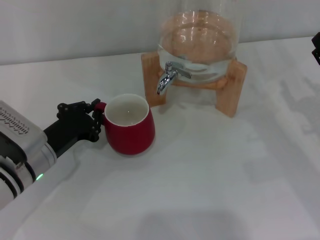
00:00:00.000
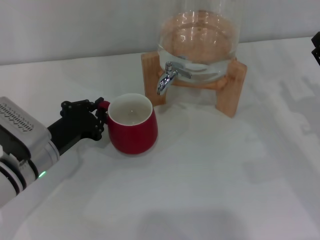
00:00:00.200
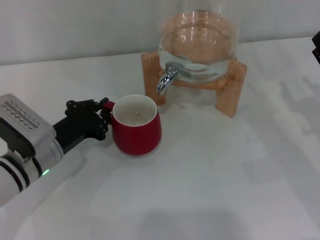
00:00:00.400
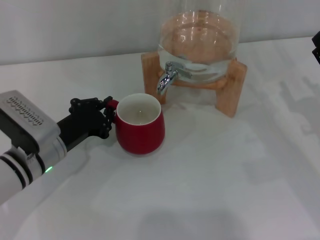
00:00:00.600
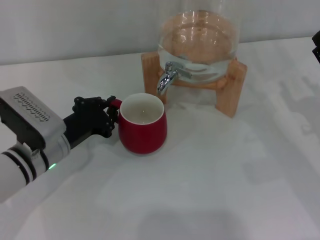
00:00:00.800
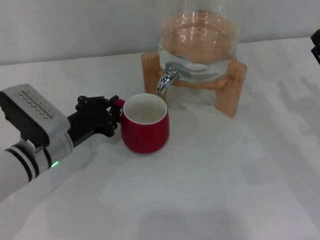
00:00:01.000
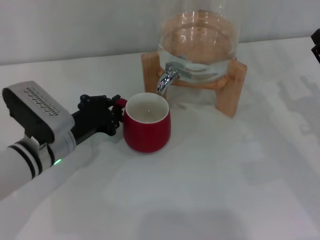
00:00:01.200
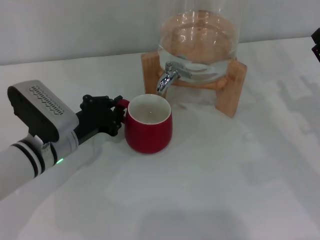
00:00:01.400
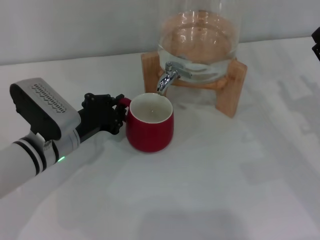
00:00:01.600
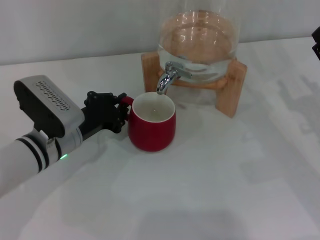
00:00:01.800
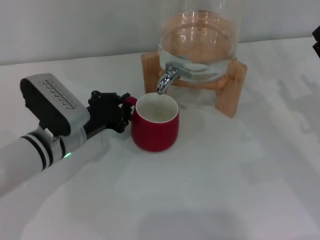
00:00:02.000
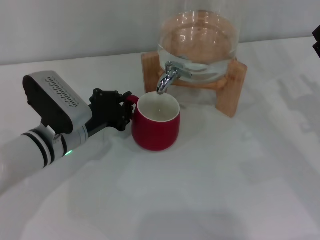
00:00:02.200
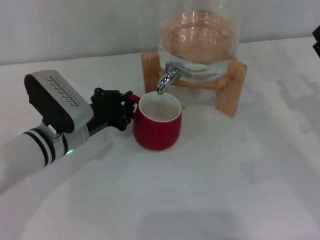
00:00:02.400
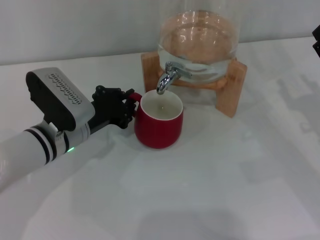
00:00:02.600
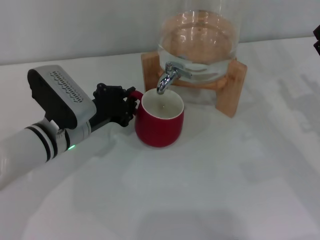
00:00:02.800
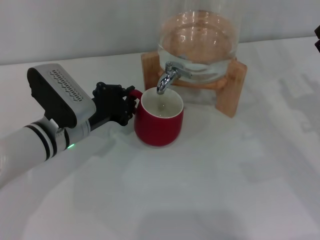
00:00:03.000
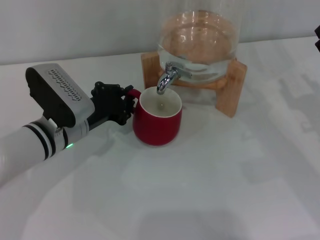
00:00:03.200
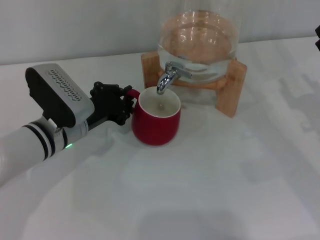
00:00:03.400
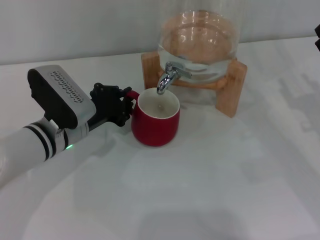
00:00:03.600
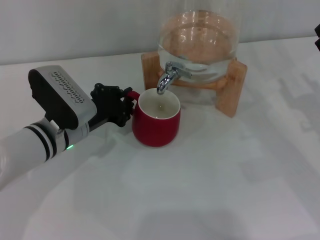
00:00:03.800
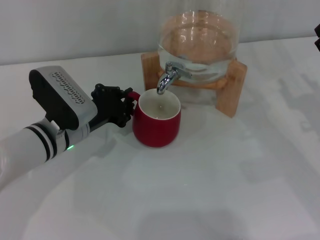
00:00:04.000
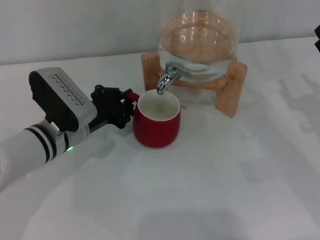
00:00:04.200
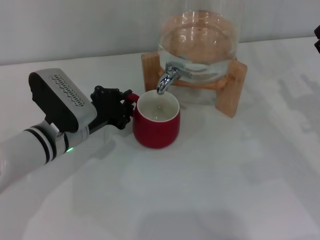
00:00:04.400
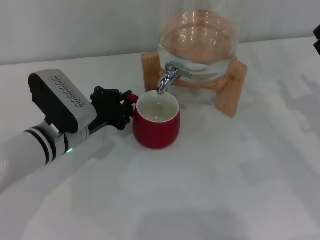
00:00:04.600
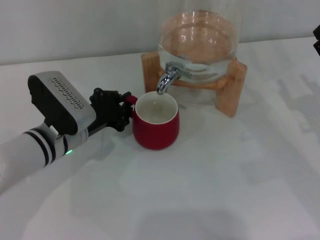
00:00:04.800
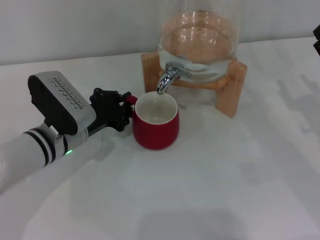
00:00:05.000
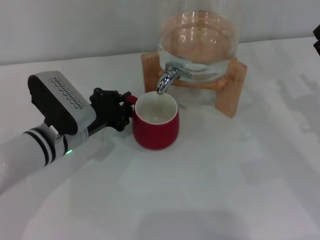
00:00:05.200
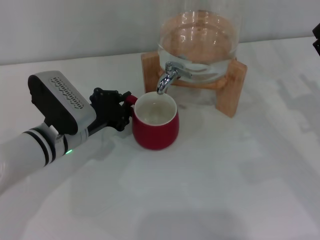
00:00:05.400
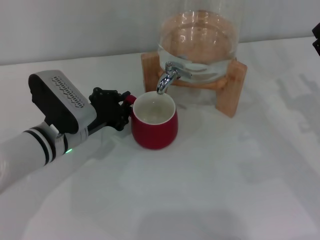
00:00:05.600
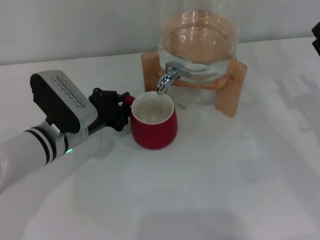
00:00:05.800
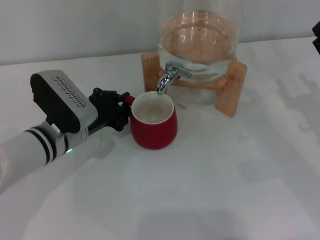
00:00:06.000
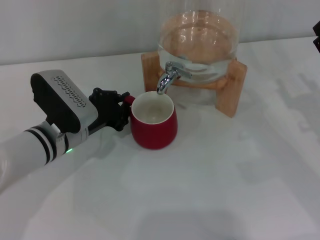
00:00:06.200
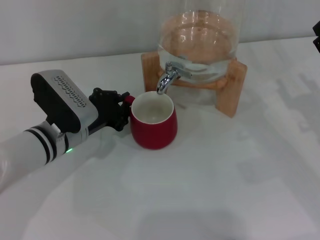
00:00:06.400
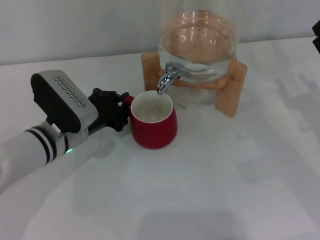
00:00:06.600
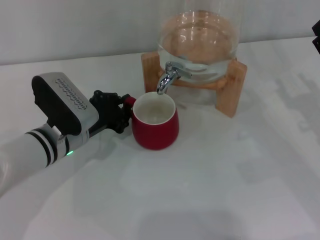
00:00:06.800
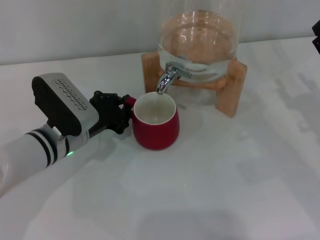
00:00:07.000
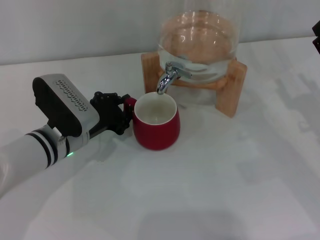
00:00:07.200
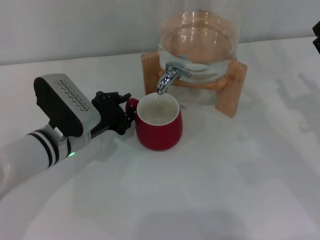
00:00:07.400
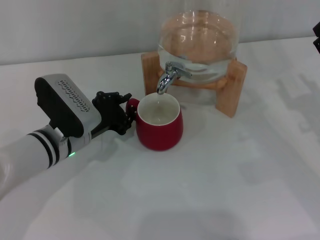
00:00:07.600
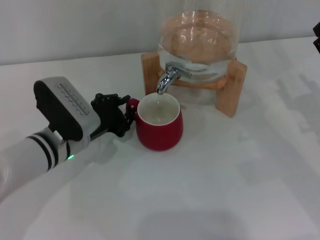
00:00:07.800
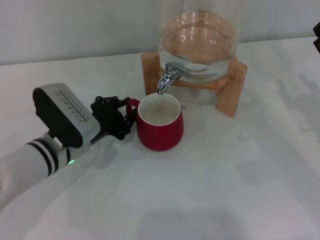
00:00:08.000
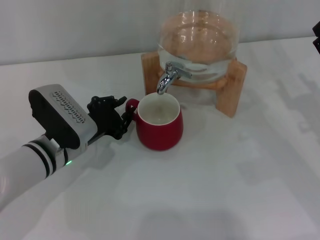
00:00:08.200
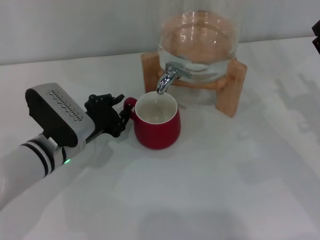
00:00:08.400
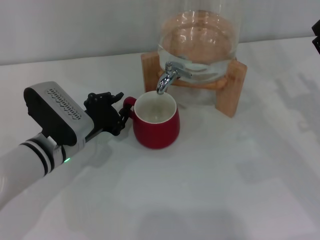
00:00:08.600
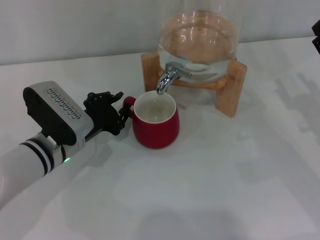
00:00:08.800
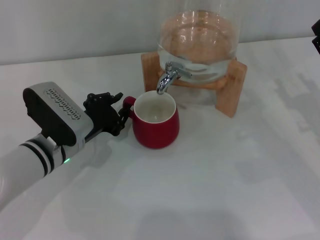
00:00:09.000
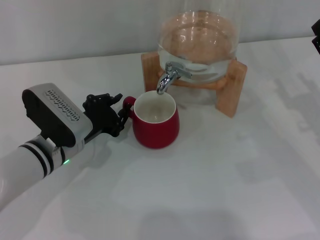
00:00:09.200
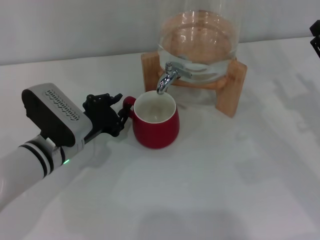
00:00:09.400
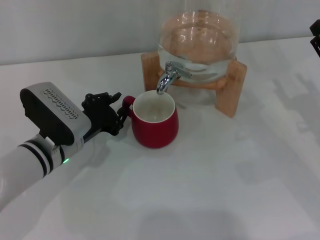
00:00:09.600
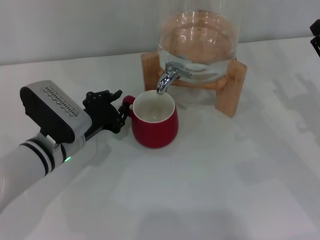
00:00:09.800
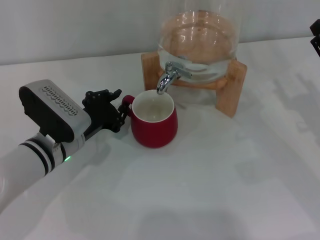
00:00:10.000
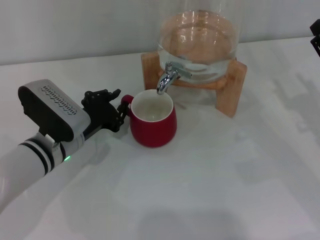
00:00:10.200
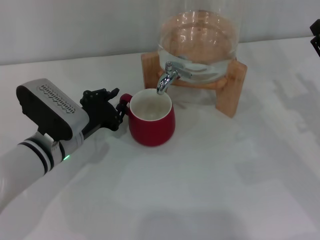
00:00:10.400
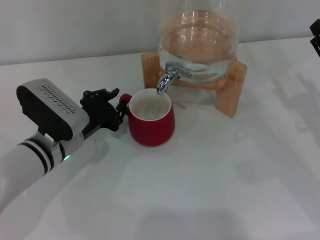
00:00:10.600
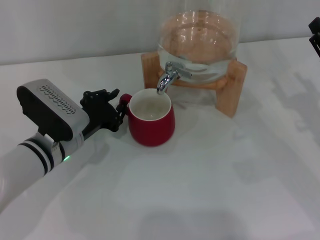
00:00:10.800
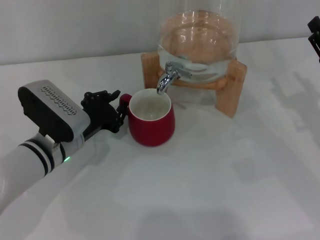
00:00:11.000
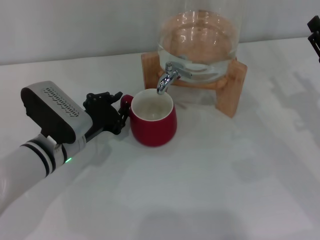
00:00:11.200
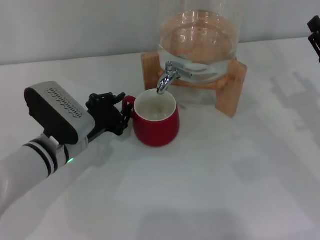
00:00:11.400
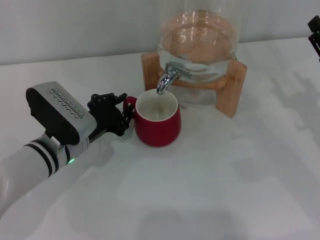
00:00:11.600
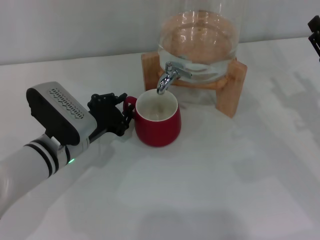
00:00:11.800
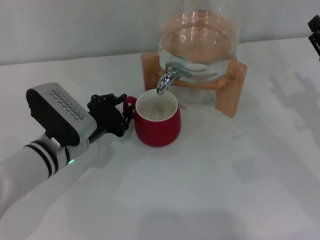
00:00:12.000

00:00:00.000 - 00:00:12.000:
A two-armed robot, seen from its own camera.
Task of the whole recording: the left gripper pick up the red cup and place it horizontally under the faucet, the right gripper turn on the faucet to fill the cup, and then turn off the faucet.
00:00:00.000 - 00:00:01.600: The grippers stay close to where they were, moving slightly.
00:00:01.600 - 00:00:03.000: The grippers move only a little.
00:00:03.000 - 00:00:07.600: Neither gripper changes place.
00:00:07.600 - 00:00:09.000: The grippers make only small movements.
00:00:09.000 - 00:00:12.000: Both grippers stay about where they are.

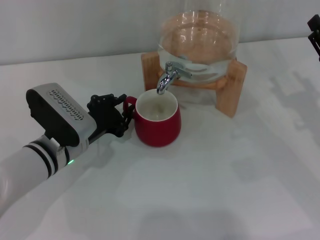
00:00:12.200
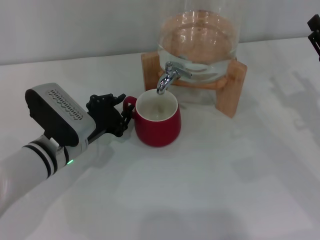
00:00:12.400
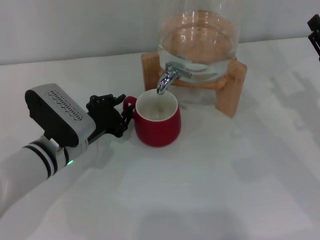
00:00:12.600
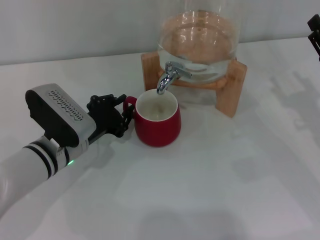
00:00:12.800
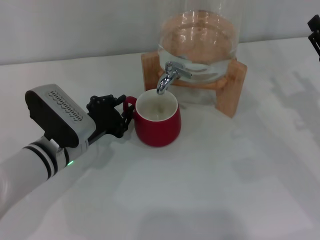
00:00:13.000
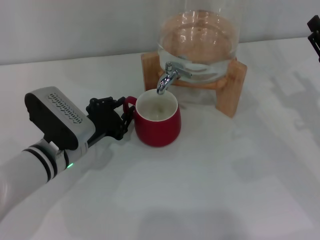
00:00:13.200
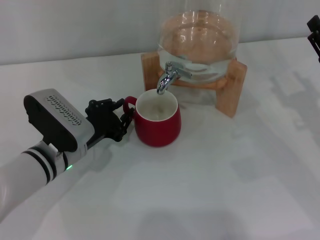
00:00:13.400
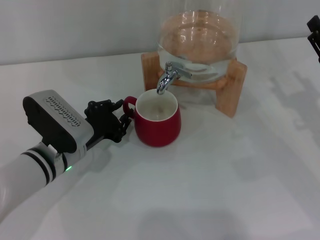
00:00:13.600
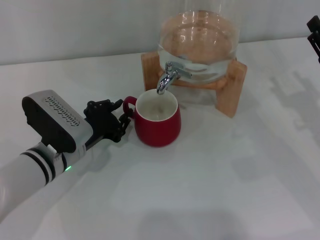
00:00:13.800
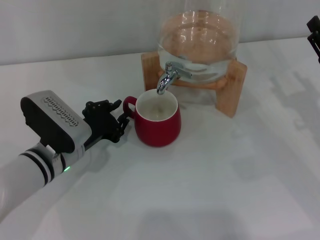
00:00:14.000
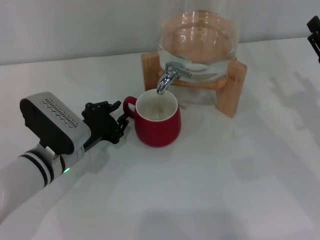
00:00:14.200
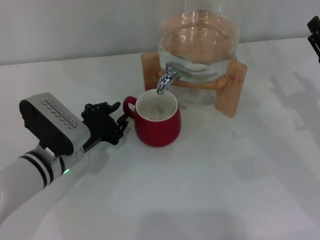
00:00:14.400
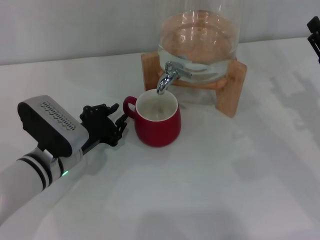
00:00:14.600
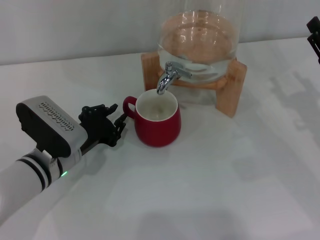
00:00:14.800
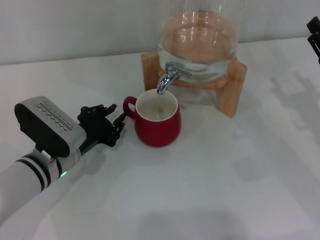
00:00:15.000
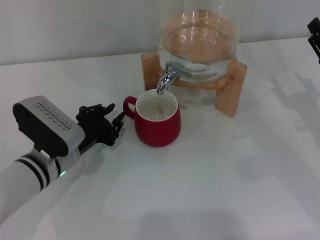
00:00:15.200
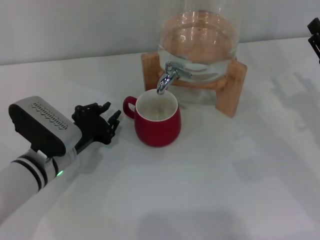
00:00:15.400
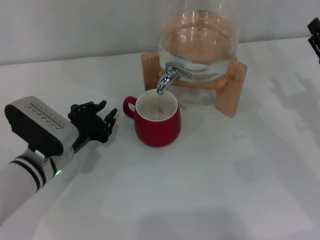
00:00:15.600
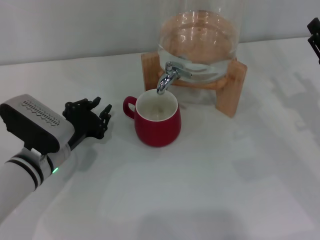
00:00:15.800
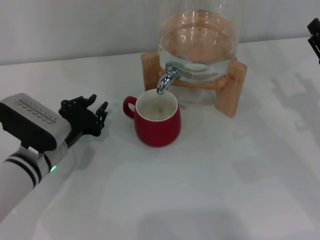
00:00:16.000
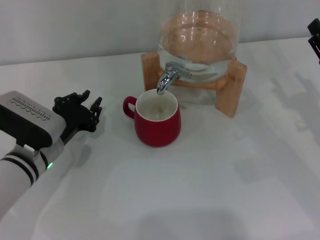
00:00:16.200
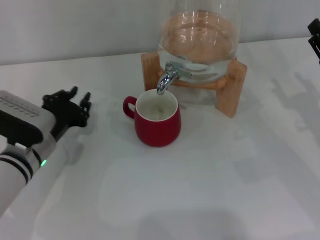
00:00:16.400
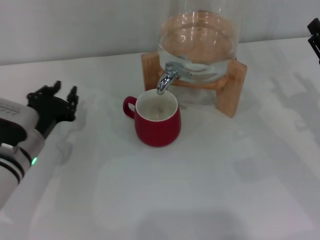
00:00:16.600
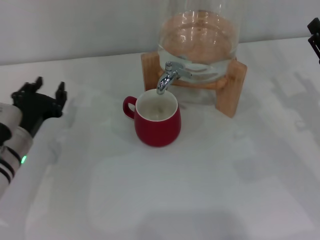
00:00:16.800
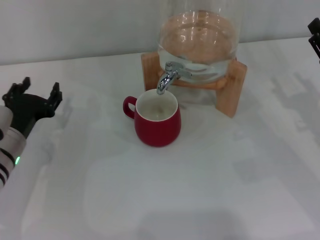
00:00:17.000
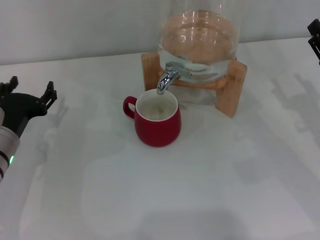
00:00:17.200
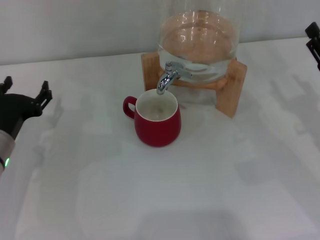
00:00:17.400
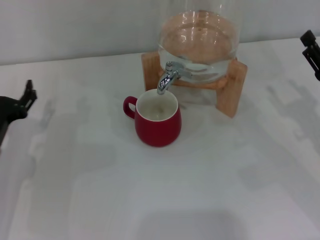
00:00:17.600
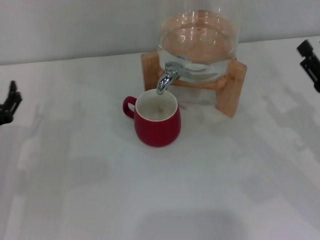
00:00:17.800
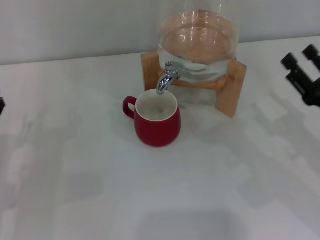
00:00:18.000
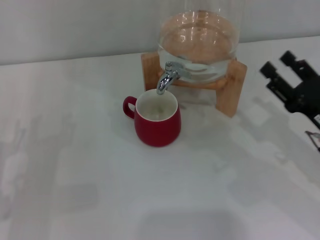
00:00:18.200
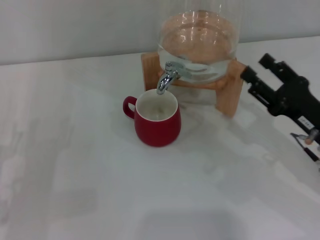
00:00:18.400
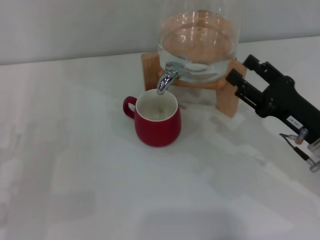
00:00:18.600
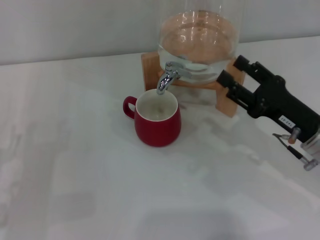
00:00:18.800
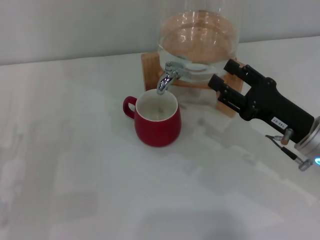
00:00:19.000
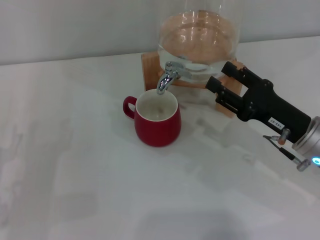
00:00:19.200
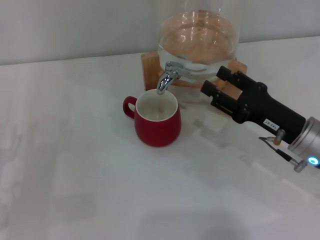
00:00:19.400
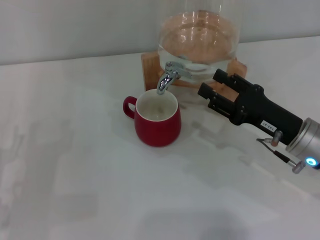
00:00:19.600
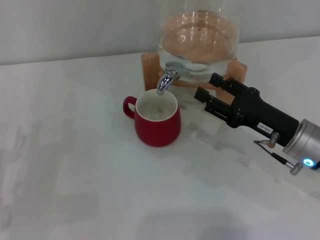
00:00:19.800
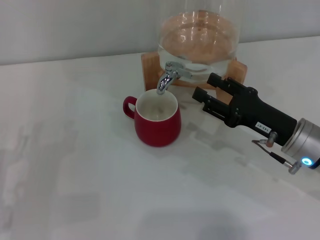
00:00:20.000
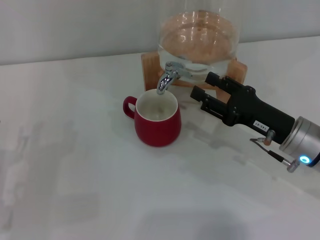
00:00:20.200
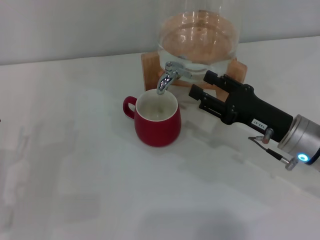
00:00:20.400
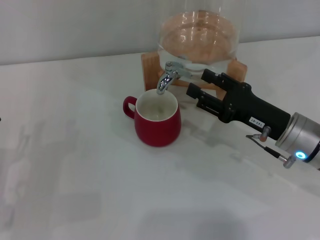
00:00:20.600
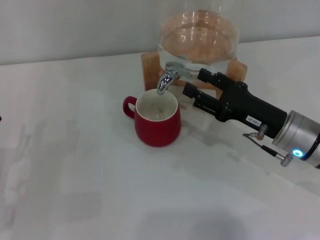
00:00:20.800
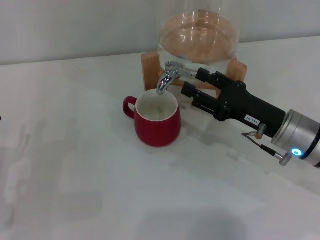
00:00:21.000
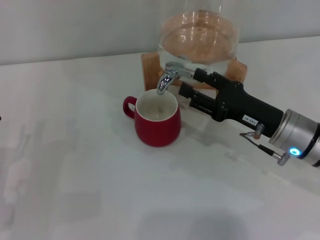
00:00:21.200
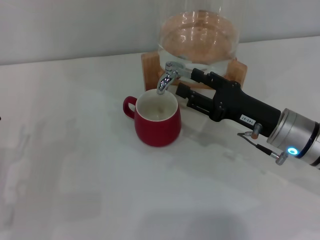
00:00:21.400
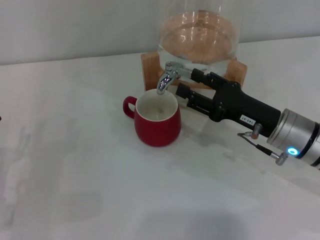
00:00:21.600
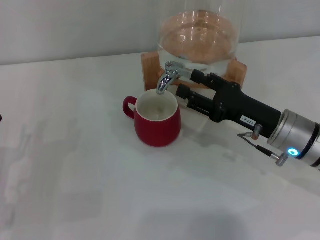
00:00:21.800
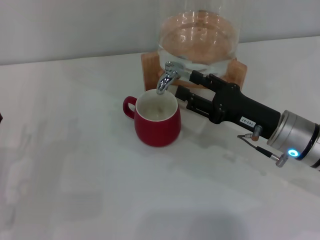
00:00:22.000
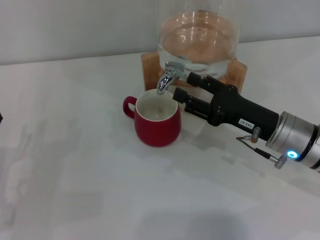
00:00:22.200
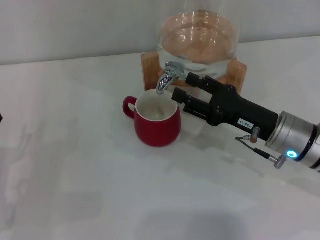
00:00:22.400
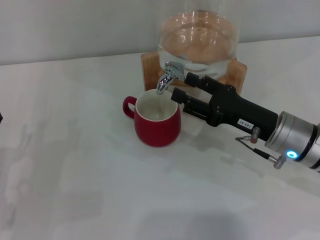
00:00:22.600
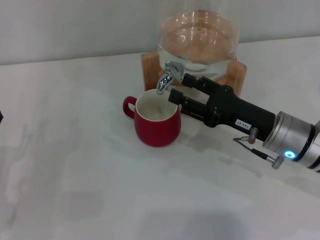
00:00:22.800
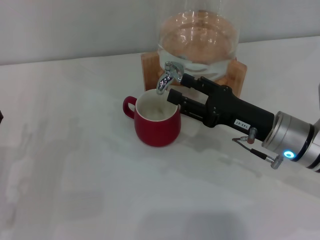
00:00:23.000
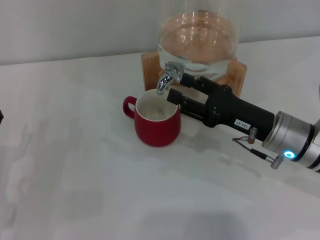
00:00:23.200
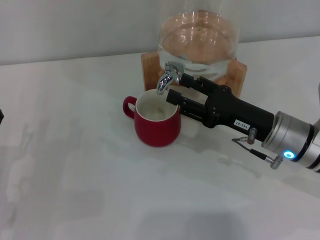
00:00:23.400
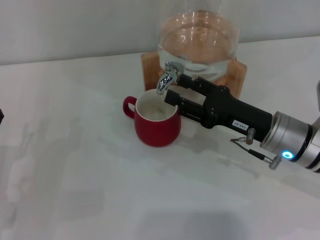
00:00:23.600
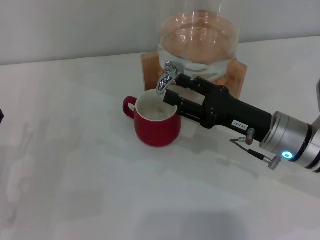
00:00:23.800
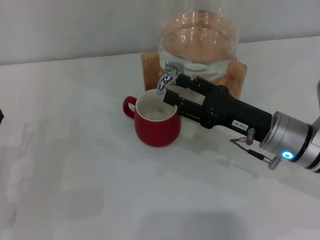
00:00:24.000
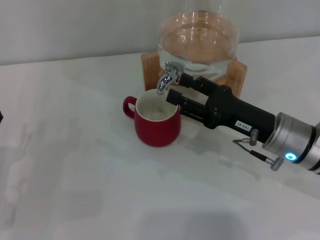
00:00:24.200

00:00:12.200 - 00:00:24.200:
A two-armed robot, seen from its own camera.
Task of the whole recording: the left gripper pick up the red cup and place it horizontally under the faucet, the right gripper turn on the faucet to fill the cup, and then turn off the faucet.
Step, 00:00:12.200 - 00:00:15.200: Move the cup beneath the water dispenser nozzle with the left gripper.
Step, 00:00:15.400 - 00:00:24.200: Open the dispenser valve and fill the cup with water with the right gripper.
00:00:12.200 - 00:00:13.800: Both grippers stay about where they are.
00:00:13.800 - 00:00:15.200: Neither gripper changes place.
00:00:16.600 - 00:00:18.200: The left gripper shifts some 10 cm to the left and backward, and opens its fingers.
00:00:18.200 - 00:00:19.800: The right gripper moves to the left, roughly 5 cm.
00:00:19.800 - 00:00:21.200: The grippers stay close to where they were, moving slightly.
00:00:21.200 - 00:00:22.600: Both grippers stay put.
00:00:22.600 - 00:00:24.200: The two grippers keep their place.
